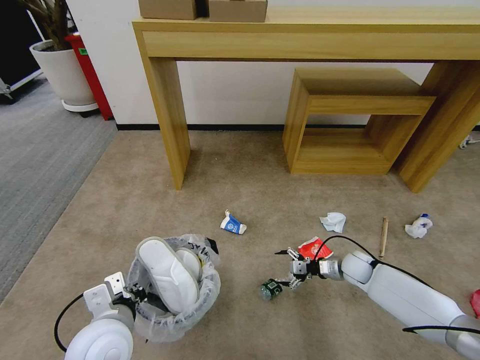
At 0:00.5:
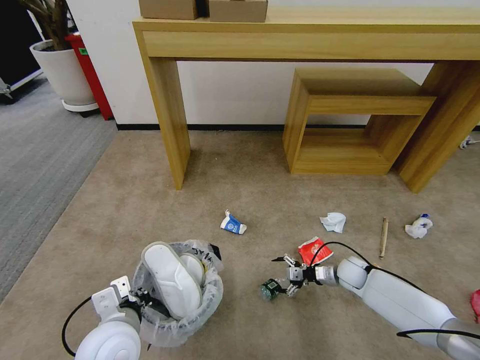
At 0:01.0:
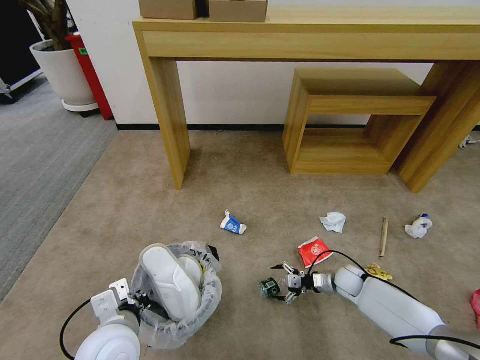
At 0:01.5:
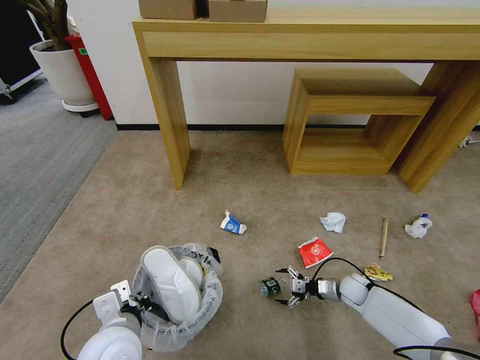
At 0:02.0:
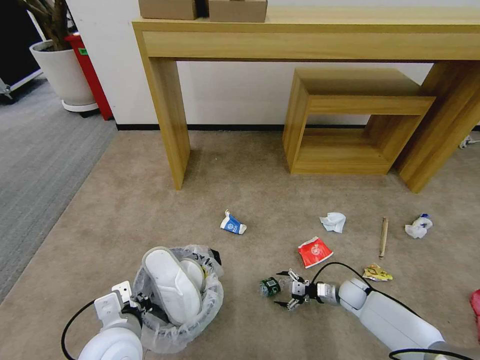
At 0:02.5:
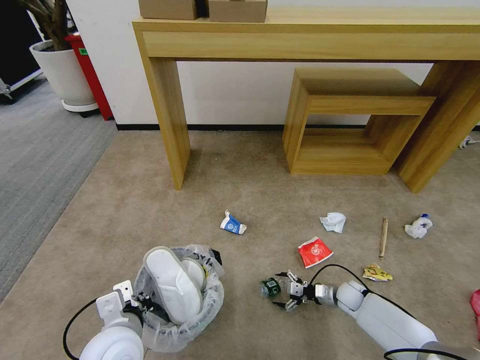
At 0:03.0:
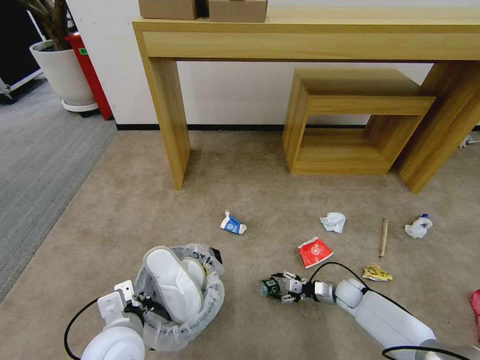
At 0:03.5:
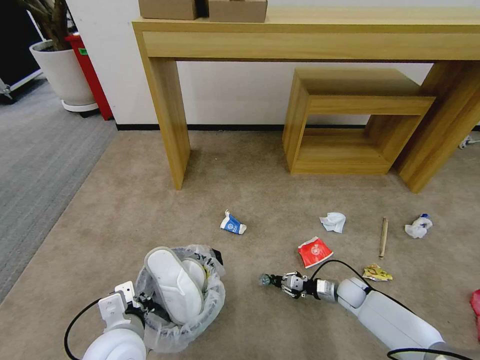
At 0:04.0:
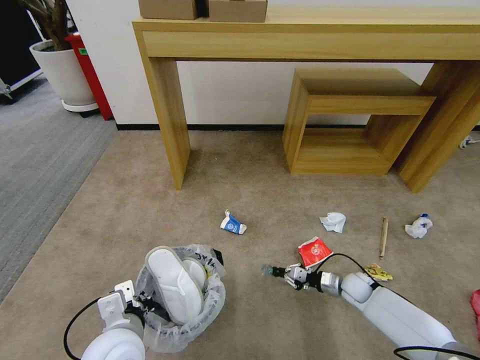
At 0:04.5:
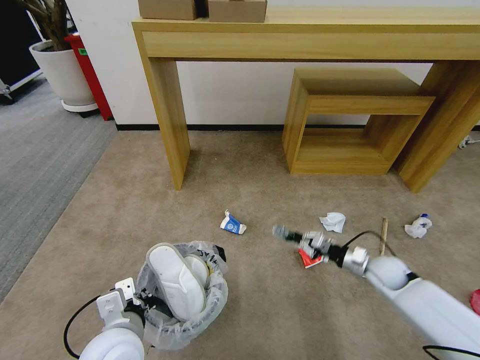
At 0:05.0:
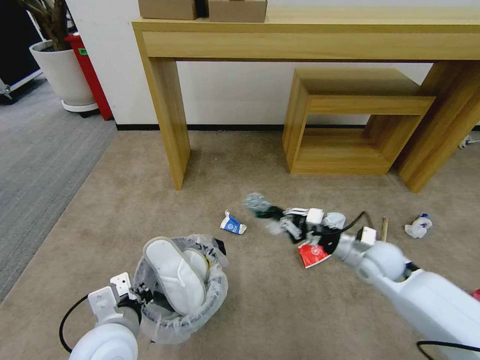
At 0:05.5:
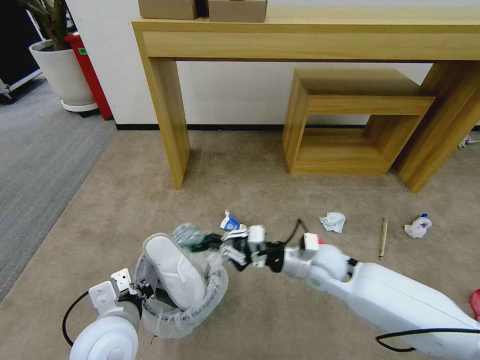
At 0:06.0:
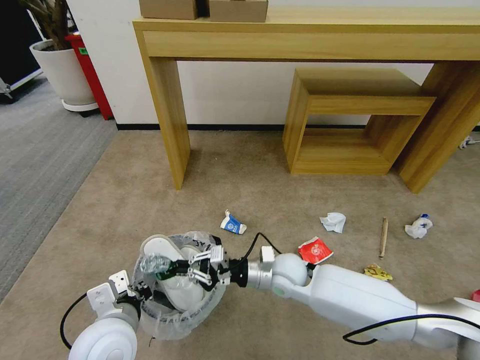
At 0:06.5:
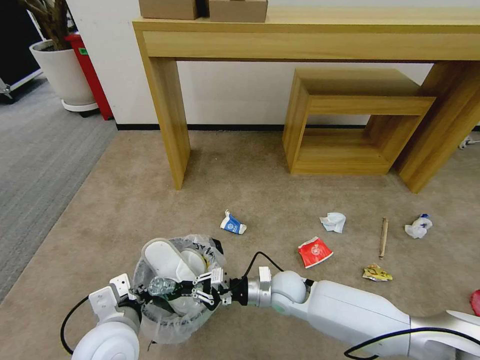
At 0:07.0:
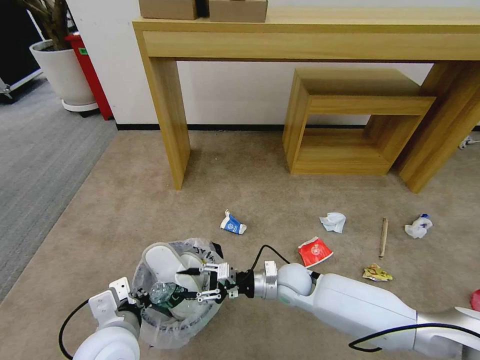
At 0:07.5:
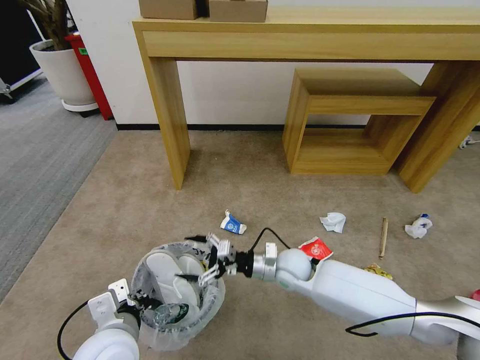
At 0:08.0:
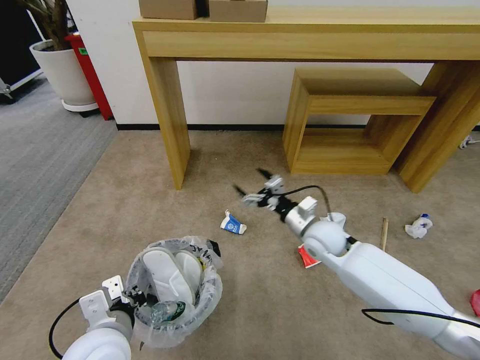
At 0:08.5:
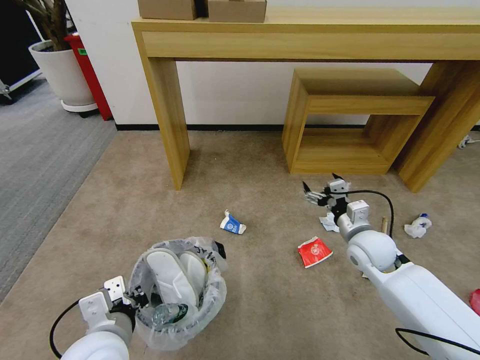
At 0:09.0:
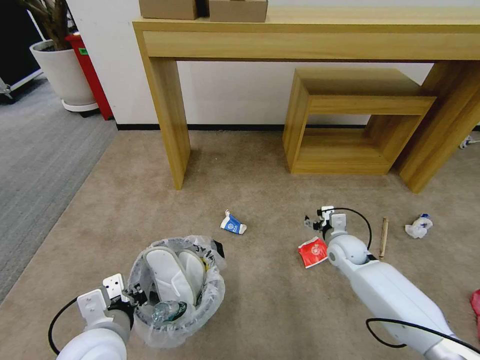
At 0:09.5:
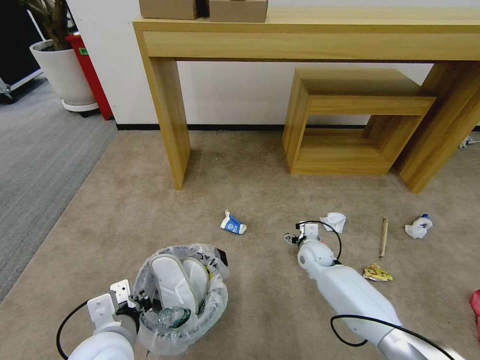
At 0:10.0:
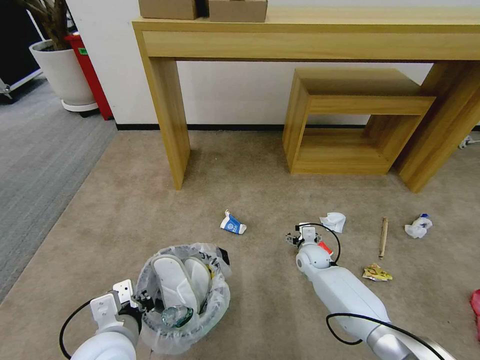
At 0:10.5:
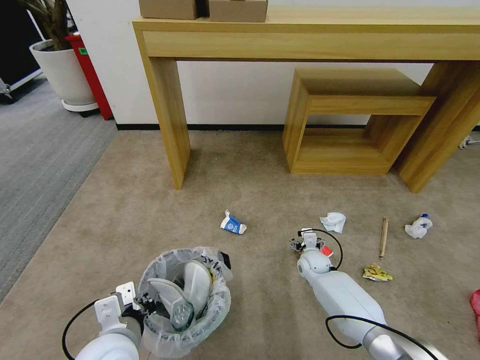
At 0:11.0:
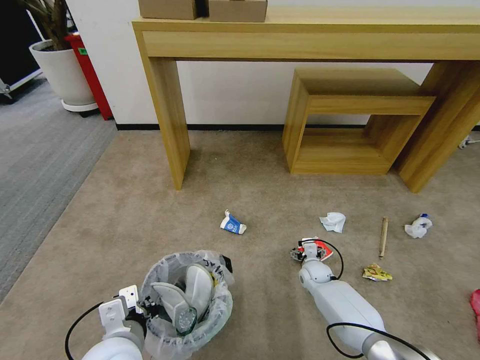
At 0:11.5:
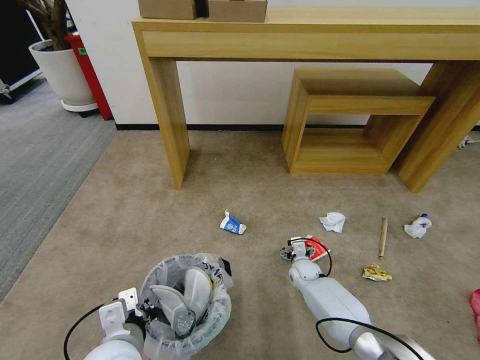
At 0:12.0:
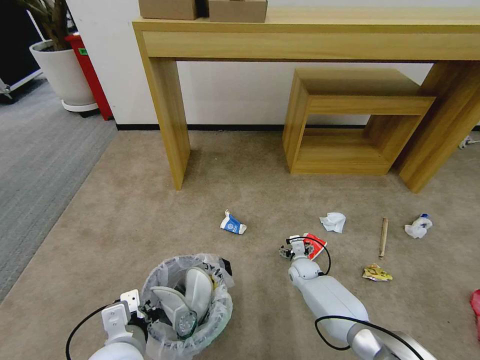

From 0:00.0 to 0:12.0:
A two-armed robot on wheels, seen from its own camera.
Task of the whole recording: Pick up the trash bin and place the garbage on the floor into it.
From 0:00.0 to 0:02.0: The right gripper travels downward by roughly 10 cm.
From 0:02.0 to 0:04.0: The right gripper closes its fingers.
From 0:04.0 to 0:06.0: The right gripper shifts about 30 cm to the left and upward.
From 0:06.0 to 0:08.0: The right gripper goes about 10 cm to the right and forward, and opens.
From 0:08.0 to 0:10.0: The right gripper travels downward by approximately 15 cm.
From 0:10.0 to 0:12.0: The right gripper heads downward, covering roughly 5 cm.

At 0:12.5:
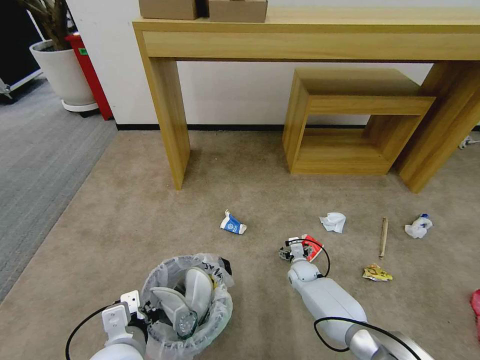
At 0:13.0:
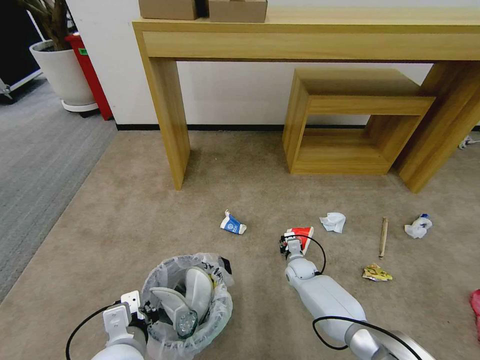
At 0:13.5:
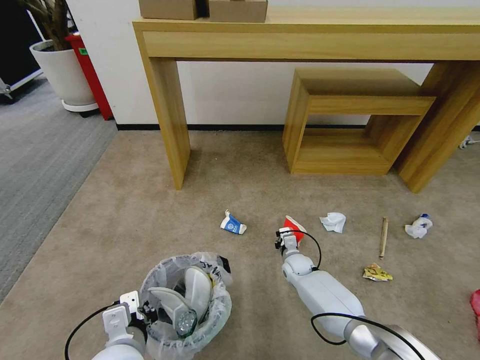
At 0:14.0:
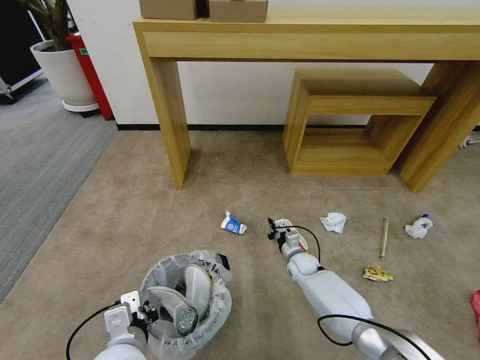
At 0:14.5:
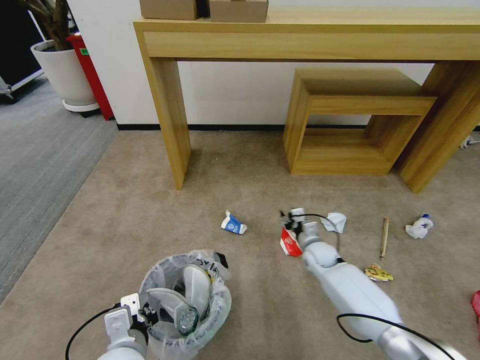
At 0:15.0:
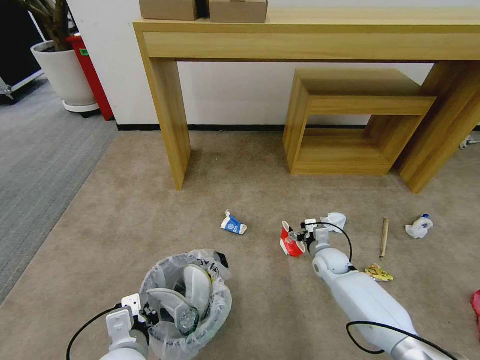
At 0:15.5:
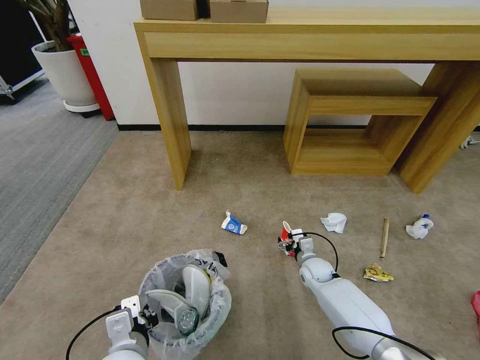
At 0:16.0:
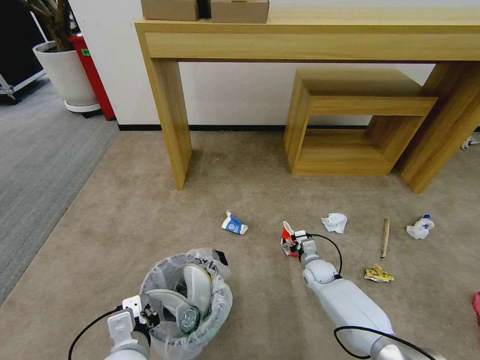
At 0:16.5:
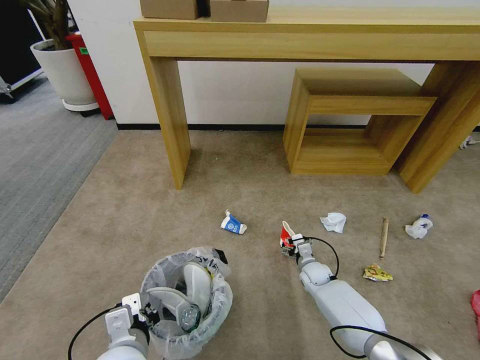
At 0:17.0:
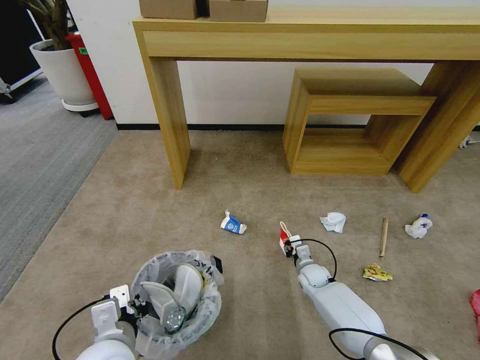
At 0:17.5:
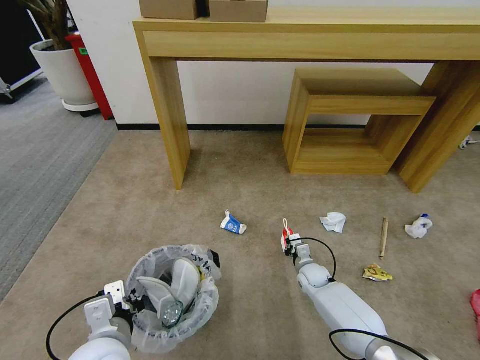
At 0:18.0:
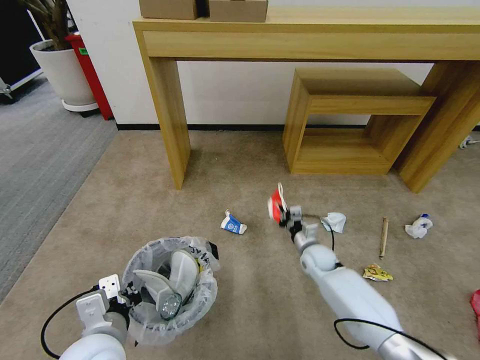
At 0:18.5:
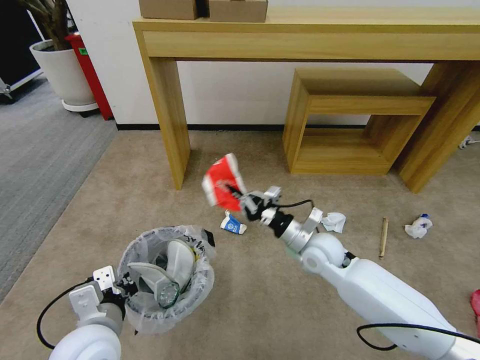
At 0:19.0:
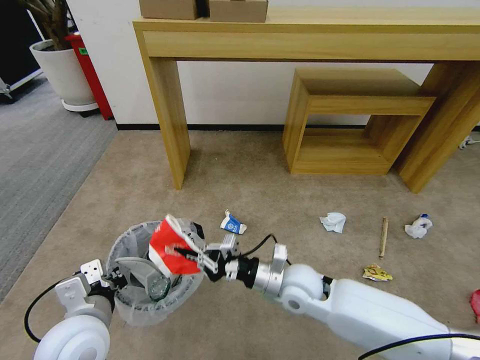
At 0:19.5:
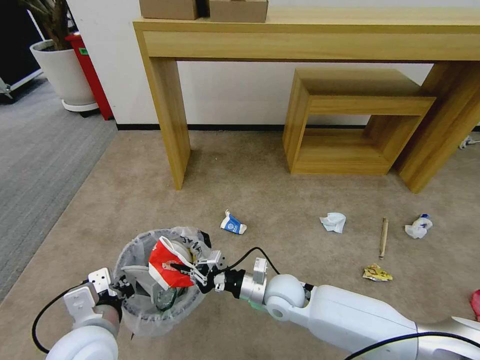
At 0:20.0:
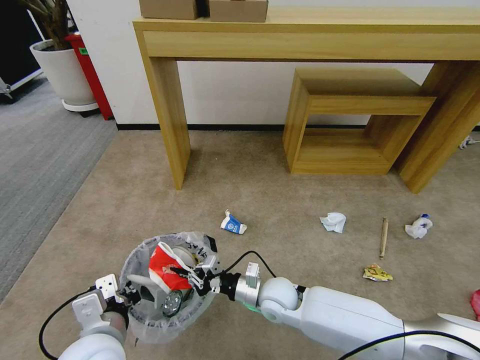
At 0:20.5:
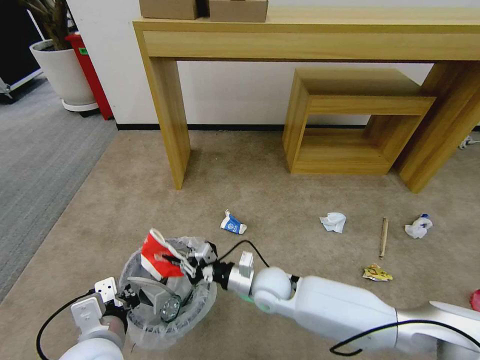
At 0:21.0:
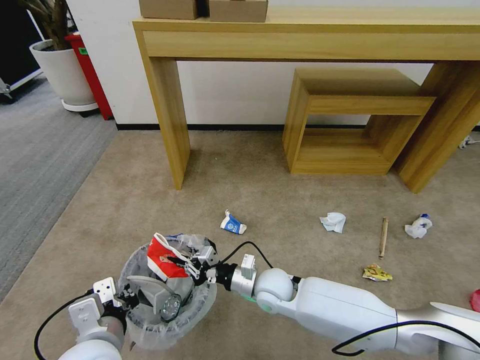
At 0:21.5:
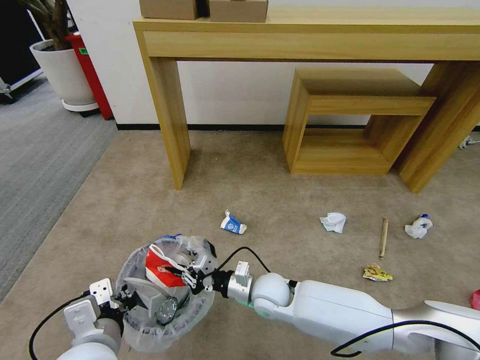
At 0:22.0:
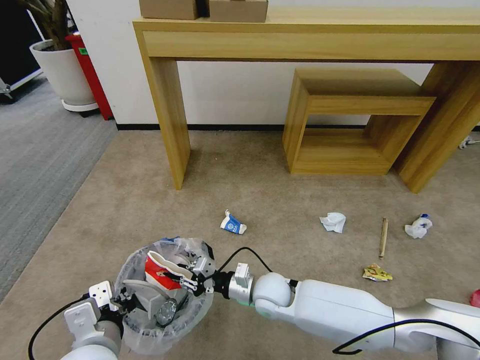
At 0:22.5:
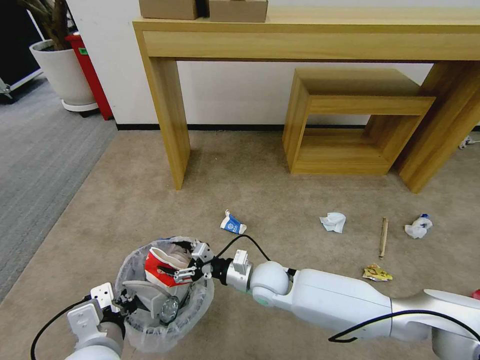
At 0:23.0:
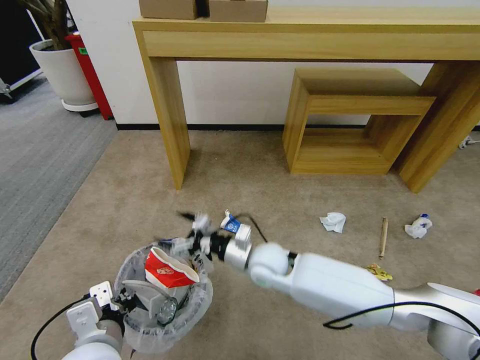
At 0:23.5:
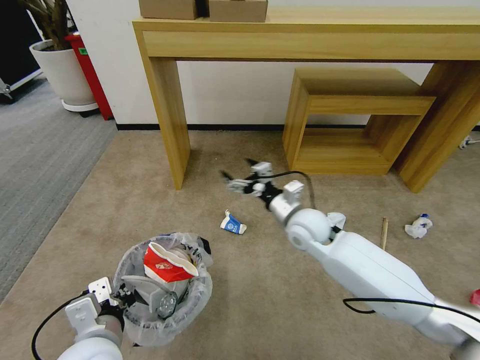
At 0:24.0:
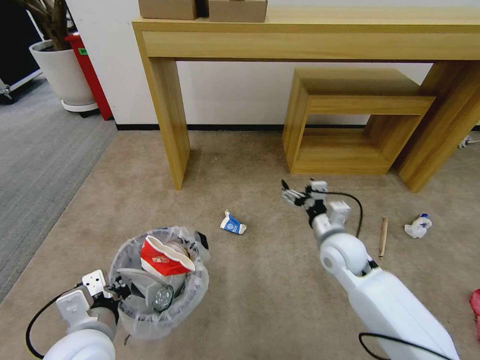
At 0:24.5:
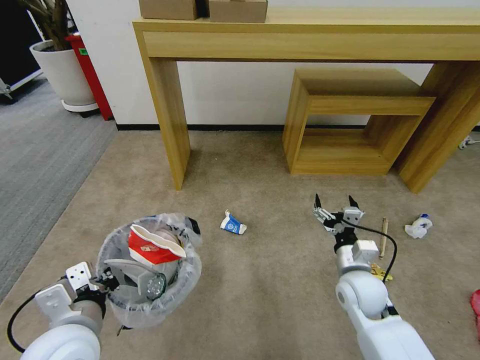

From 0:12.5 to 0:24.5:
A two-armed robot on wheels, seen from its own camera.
Task of the whole recording: Pick up the trash bin and place the garbage on the floor into it.
From 0:12.5 to 0:14.5: The right gripper heads upward, covering about 10 cm, and closes.
From 0:14.5 to 0:16.5: The right gripper moves downward, roughly 10 cm, and opens up.
From 0:16.5 to 0:18.5: The left gripper is displaced upward by approximately 5 cm, while the right gripper heads upward, covering roughly 25 cm, and closes.
From 0:18.5 to 0:20.5: The right gripper moves to the left, downward and backward, some 15 cm.
From 0:20.5 to 0:22.5: The right gripper opens its fingers.
From 0:22.5 to 0:24.5: The left gripper shifts by some 5 cm, while the right gripper travels to the right by about 20 cm.

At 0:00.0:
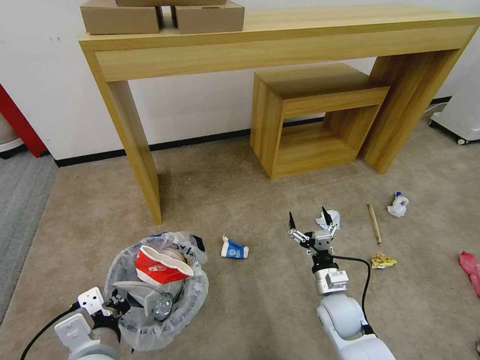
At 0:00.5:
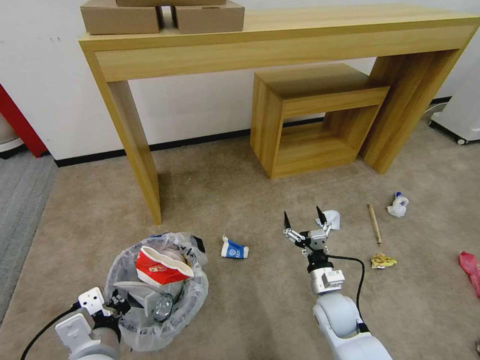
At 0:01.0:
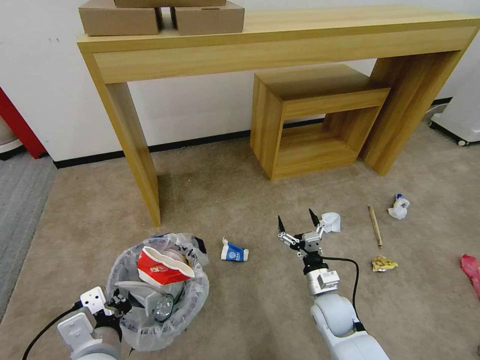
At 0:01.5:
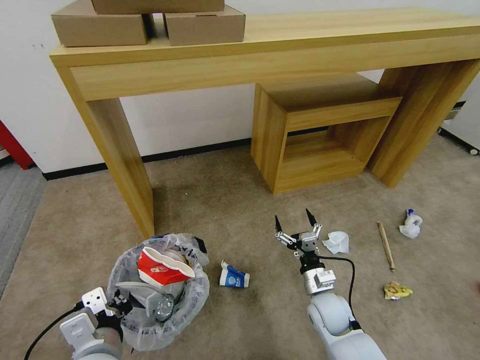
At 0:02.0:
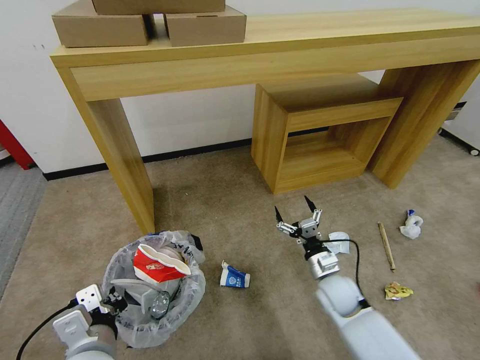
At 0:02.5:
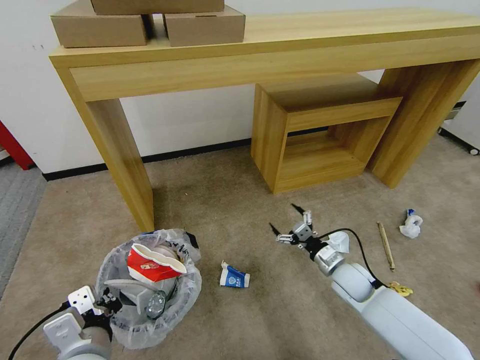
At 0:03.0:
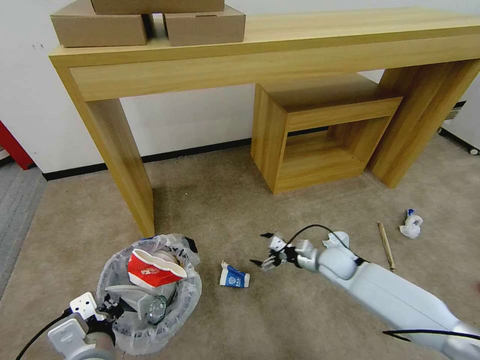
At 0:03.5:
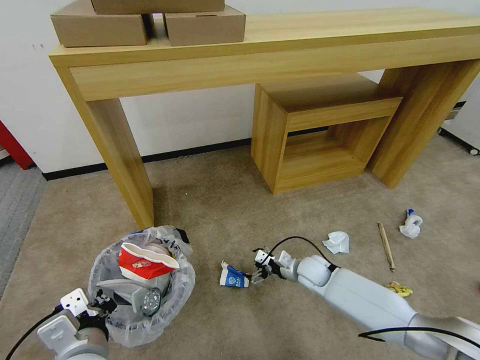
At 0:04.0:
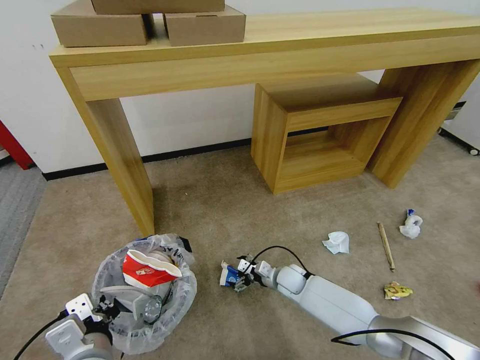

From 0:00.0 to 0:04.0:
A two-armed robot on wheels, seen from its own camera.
Task of the whole recording: Pick up the trash bin and place the garbage on the floor into it.
From 0:02.0 to 0:04.0: The right gripper is displaced downward, forward and to the left by about 15 cm.
